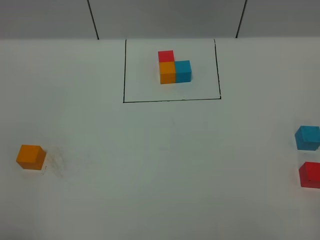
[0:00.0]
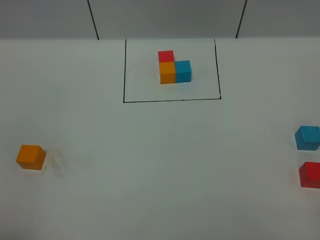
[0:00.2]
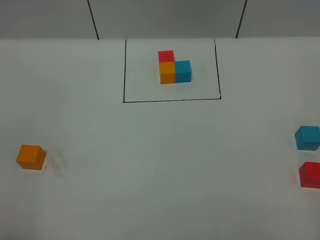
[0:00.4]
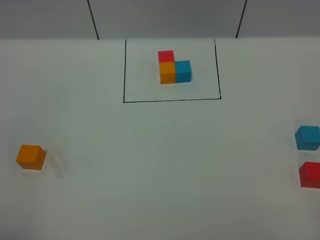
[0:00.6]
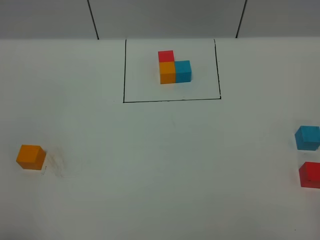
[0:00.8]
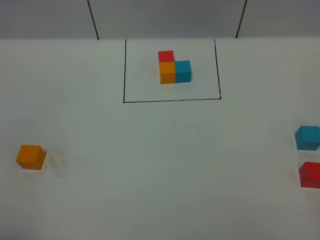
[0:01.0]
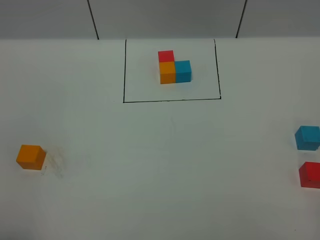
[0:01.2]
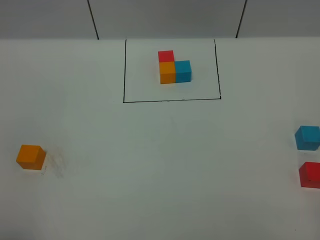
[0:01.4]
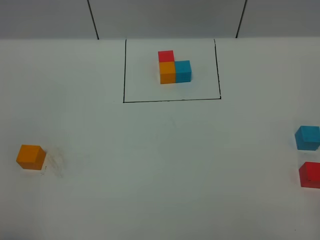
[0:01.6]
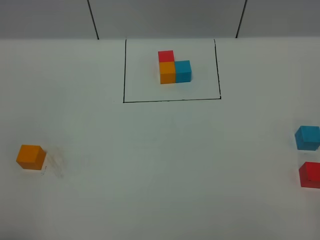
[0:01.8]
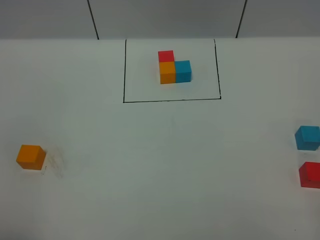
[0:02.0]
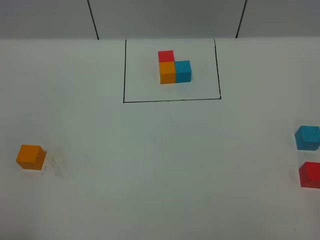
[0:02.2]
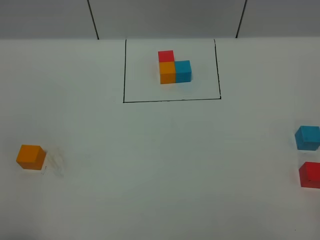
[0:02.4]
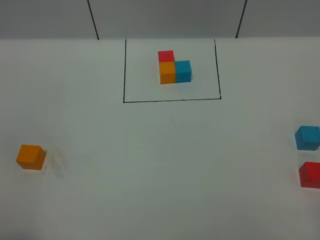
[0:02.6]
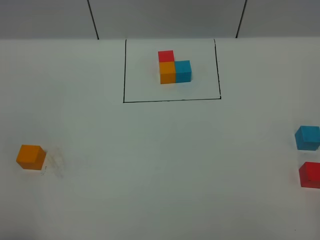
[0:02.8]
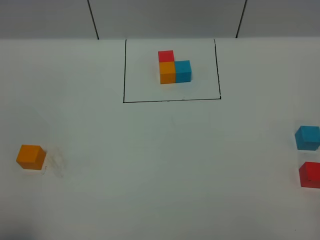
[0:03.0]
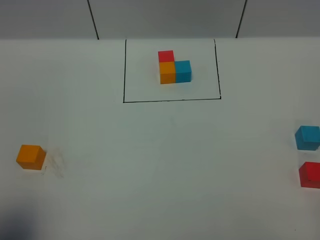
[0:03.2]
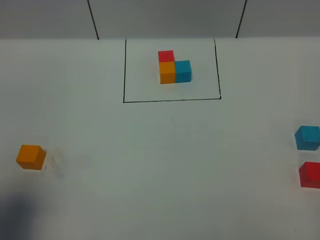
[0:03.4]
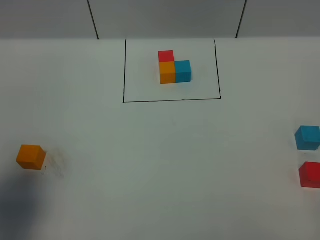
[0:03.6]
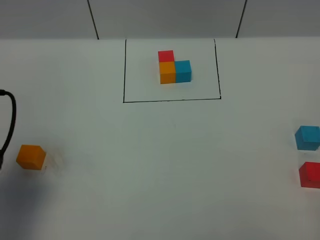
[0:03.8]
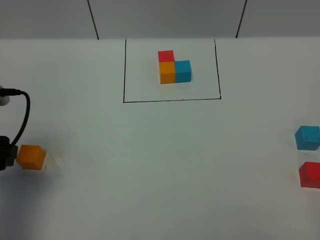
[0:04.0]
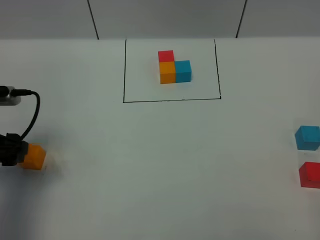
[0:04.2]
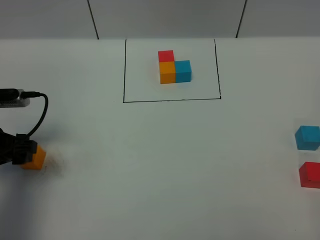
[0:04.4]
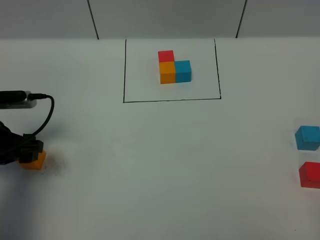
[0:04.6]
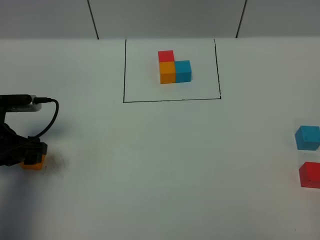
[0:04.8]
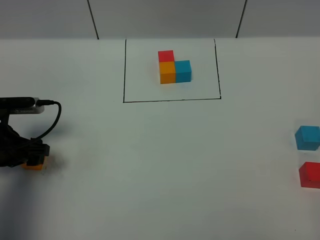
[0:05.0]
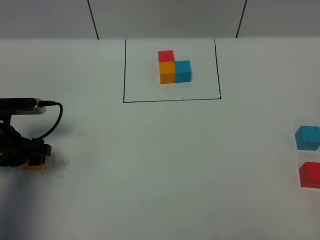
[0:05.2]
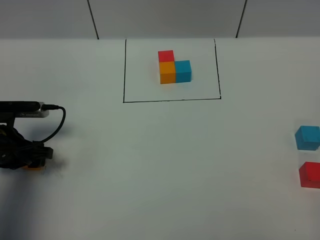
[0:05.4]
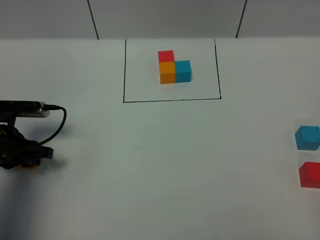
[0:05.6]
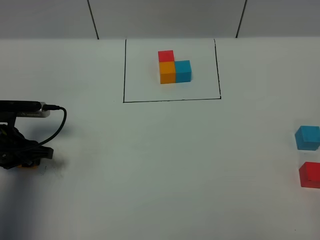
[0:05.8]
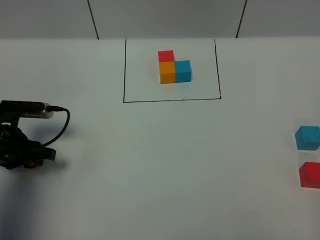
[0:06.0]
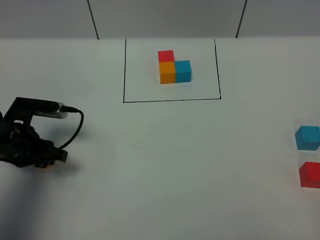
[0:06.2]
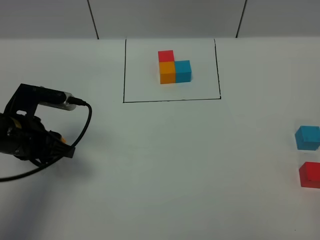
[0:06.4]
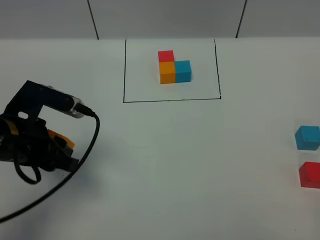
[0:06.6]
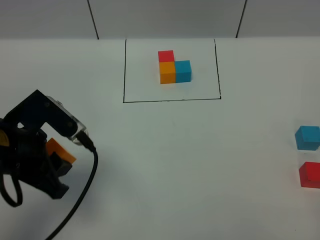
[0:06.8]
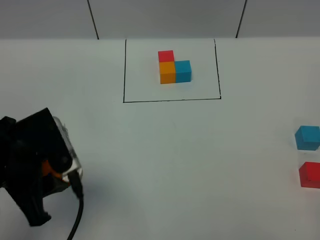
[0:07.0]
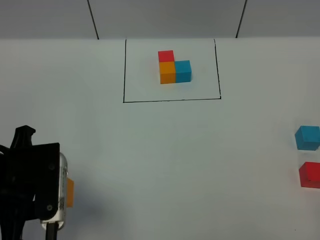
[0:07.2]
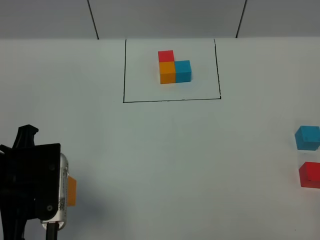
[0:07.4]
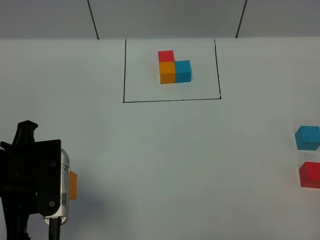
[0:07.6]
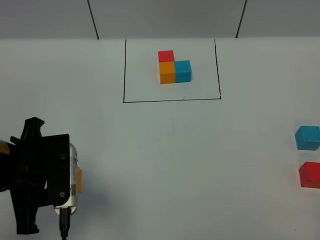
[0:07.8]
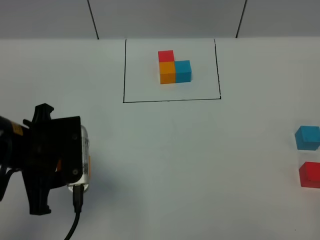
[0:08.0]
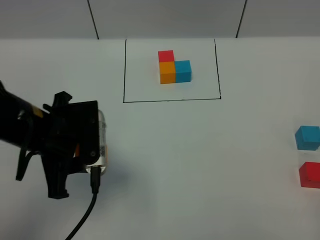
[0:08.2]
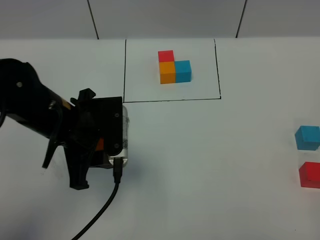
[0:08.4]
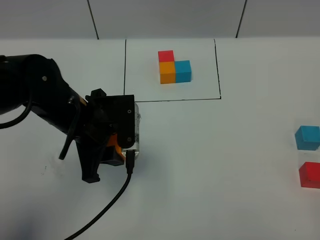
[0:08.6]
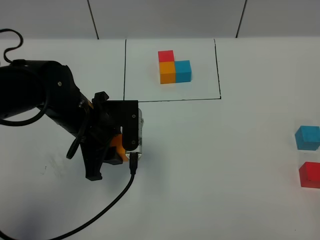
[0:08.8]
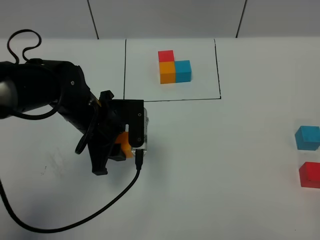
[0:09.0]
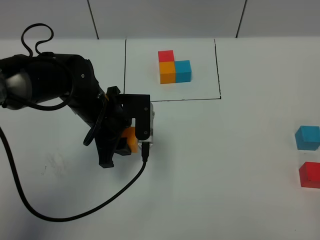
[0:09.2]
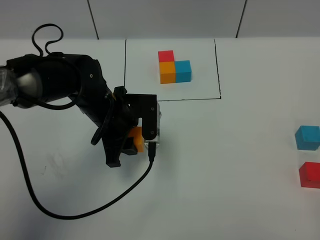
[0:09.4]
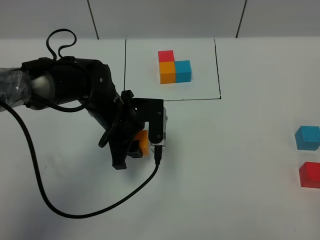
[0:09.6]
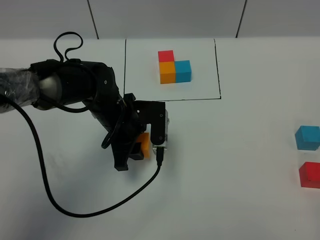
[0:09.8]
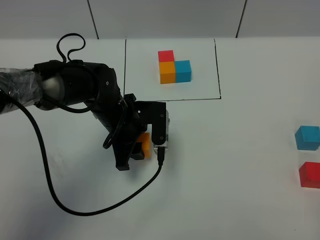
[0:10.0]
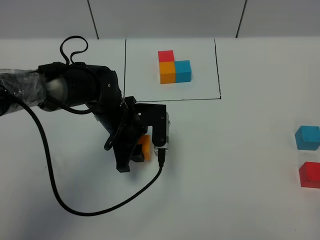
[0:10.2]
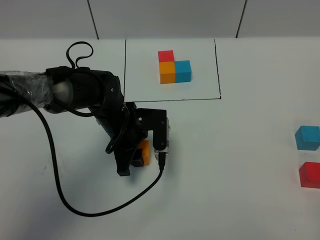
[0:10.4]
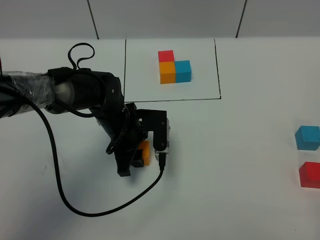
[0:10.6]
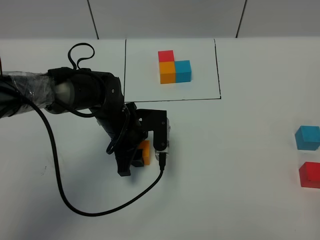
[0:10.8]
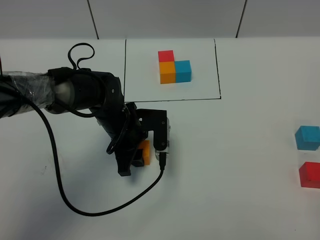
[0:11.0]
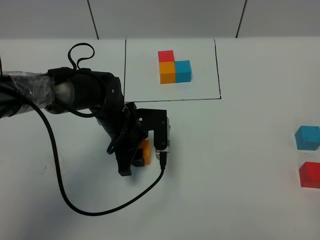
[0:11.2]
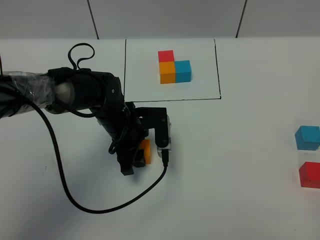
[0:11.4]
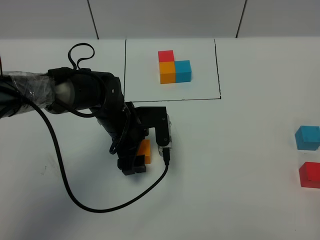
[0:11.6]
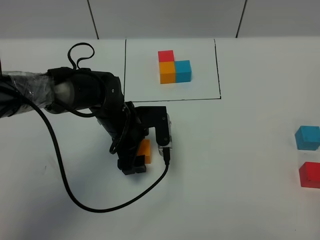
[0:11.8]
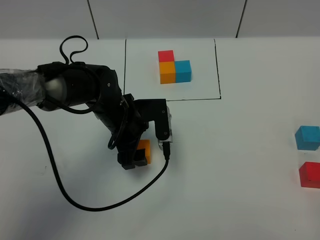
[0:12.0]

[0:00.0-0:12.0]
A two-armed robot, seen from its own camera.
Task of the whole recording: According to the building block template in front, assemble the scattered blocks together.
Step, 0:03.6 to 0:11.6: Put the orange cube in the center of the table.
0:00.0 to 0:01.6: Both grippers stay about where they are.
0:03.0 to 0:04.4: The left gripper heads forward and downward, covering about 25 cm.
0:04.4 to 0:06.0: The left gripper goes approximately 5 cm downward, and closes up.
0:06.0 to 0:07.6: The left gripper moves upward, backward and to the right, some 20 cm.
0:07.6 to 0:09.0: The left gripper travels forward, to the right and downward by roughly 20 cm.
0:09.0 to 0:10.4: The left gripper shifts roughly 5 cm downward.
0:10.4 to 0:12.0: The left gripper opens up.

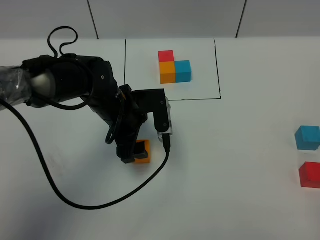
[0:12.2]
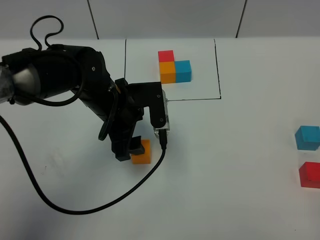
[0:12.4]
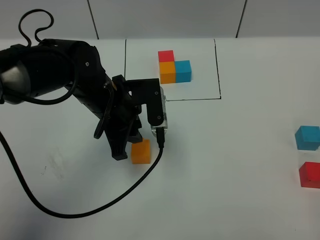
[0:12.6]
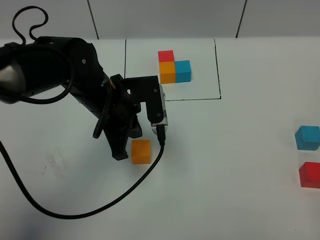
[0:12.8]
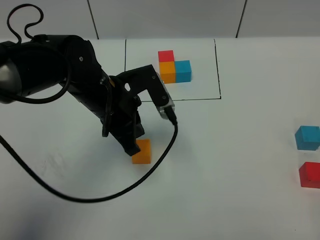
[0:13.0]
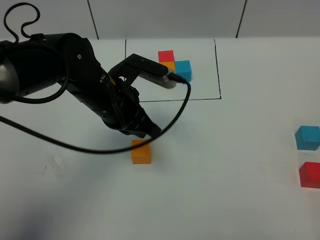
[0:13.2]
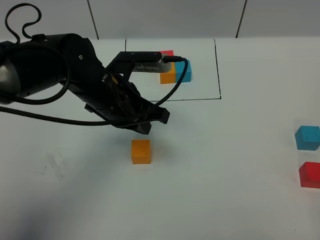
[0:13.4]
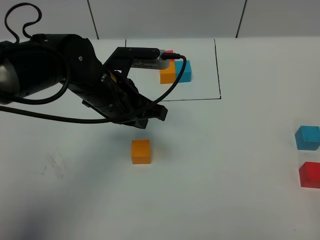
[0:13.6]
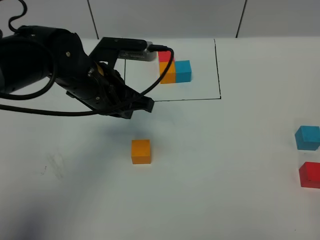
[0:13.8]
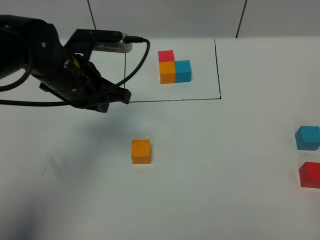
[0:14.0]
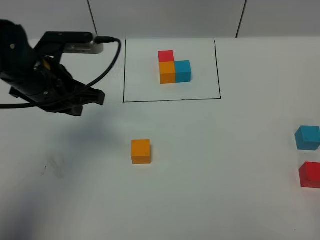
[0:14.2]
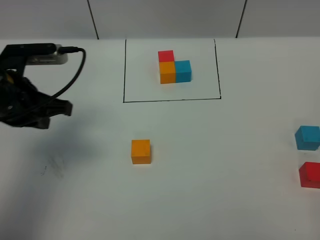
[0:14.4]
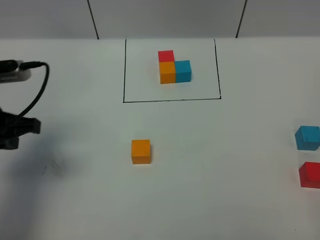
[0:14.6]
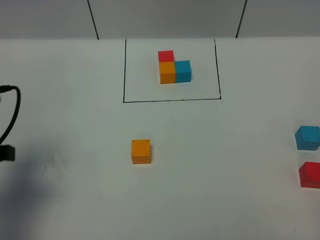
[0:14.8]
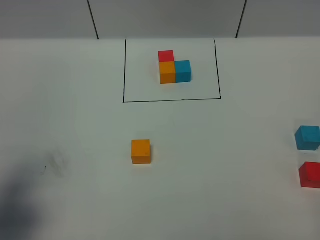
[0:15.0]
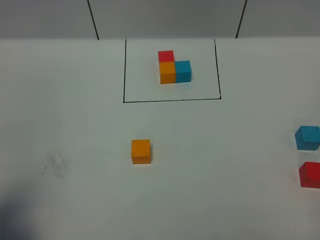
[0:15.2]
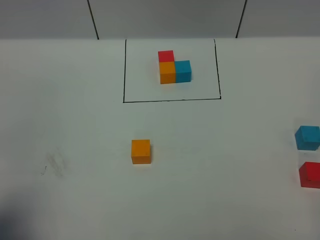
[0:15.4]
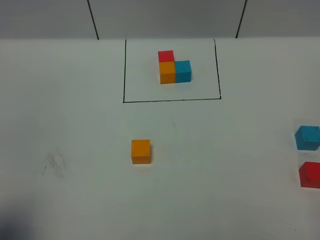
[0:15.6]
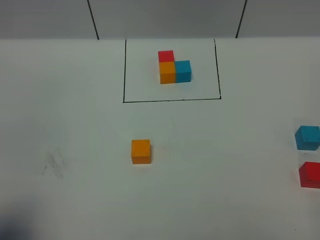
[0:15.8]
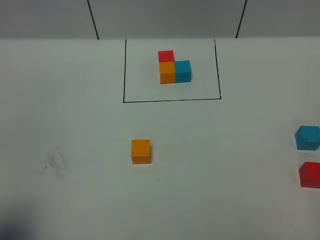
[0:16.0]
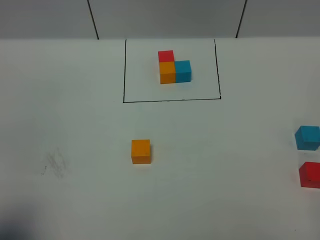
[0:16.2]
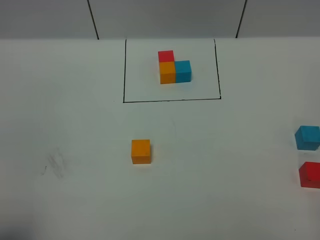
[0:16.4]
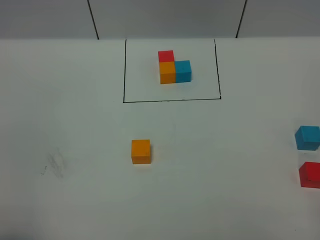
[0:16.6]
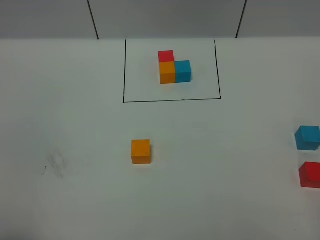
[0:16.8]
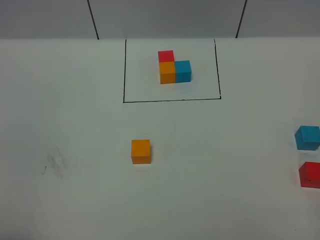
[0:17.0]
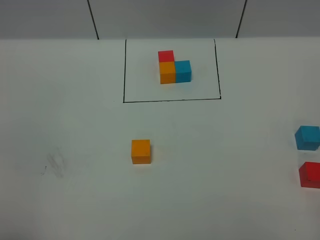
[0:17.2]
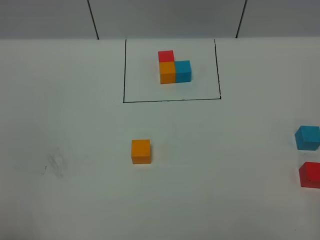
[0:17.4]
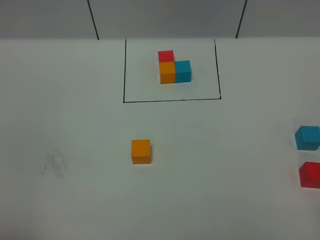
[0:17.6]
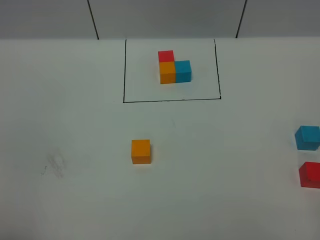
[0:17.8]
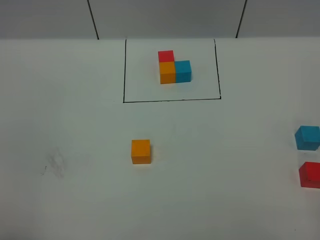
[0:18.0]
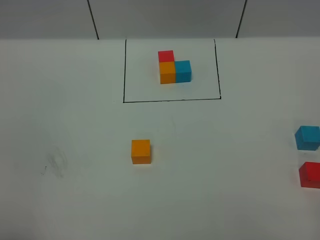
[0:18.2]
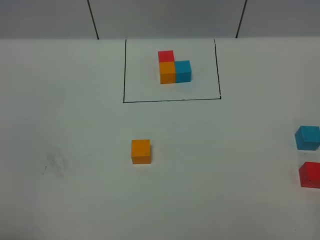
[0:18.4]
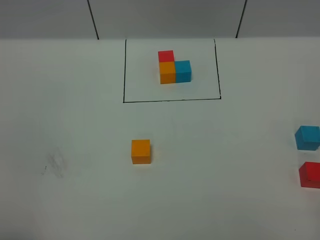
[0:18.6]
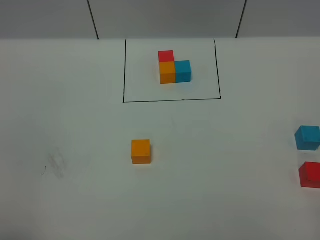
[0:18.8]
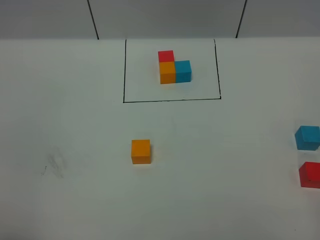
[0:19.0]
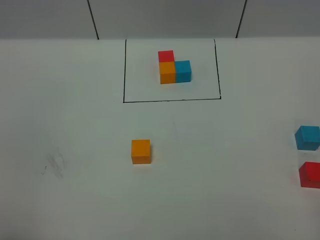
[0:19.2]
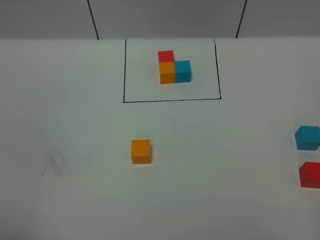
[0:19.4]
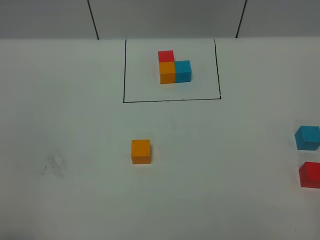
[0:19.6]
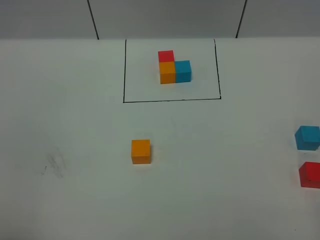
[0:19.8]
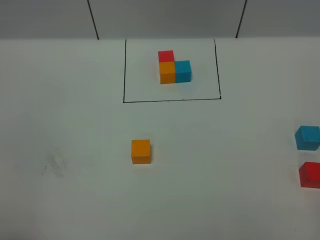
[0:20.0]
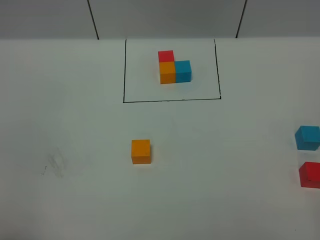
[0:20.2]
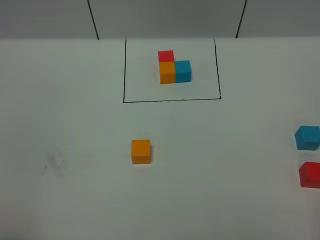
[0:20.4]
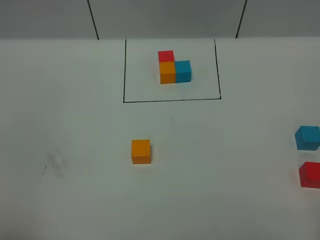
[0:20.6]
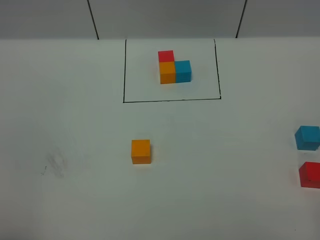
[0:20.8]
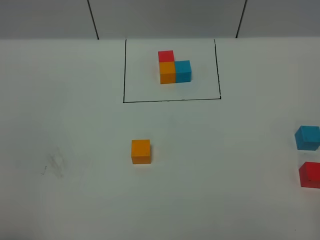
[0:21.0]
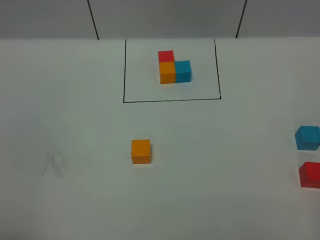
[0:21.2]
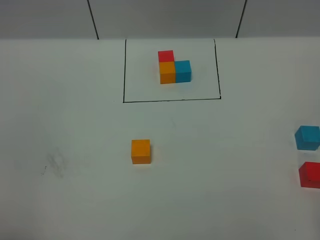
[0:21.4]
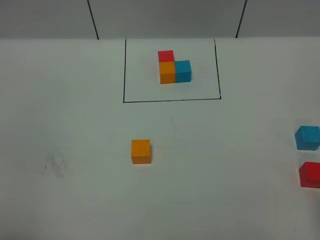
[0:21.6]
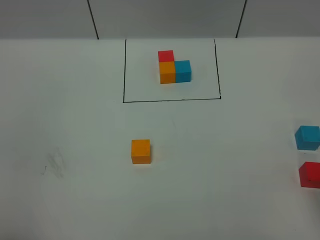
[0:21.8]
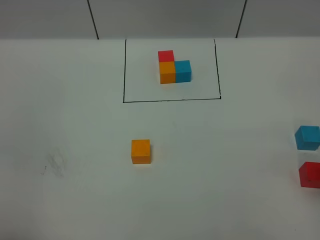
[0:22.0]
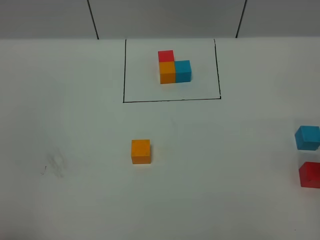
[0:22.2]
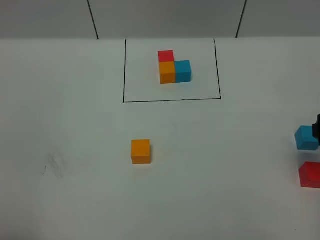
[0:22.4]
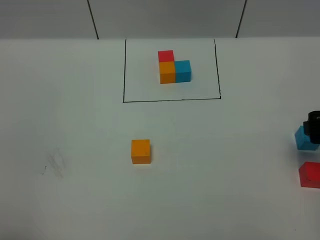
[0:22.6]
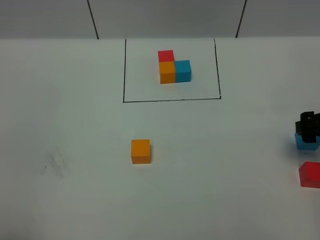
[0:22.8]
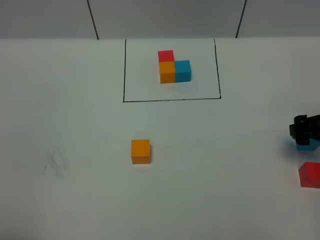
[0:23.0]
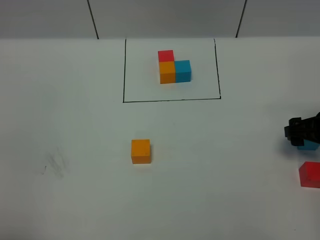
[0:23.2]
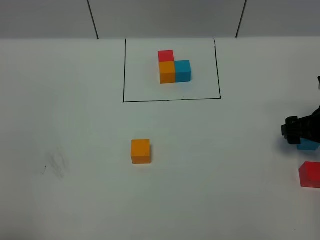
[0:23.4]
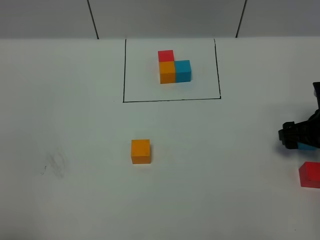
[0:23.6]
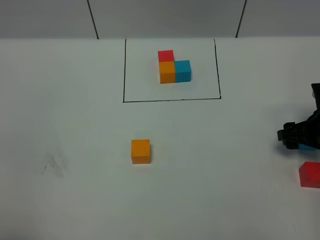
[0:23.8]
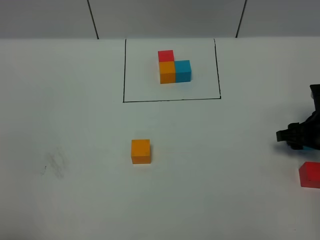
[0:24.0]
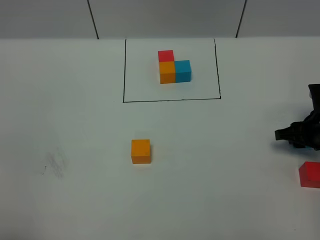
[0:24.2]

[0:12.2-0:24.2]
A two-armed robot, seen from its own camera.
Task of the whole recording: According to the building block template in front, assemble the scattered blocks together.
0:12.2 to 0:13.8: The left gripper is displaced upward by about 5 cm, and closes.
0:13.8 to 0:15.2: The left gripper travels backward and to the left by about 30 cm.
0:15.2 to 0:16.6: The left gripper is displaced backward by roughly 10 cm.
0:16.6 to 0:19.8: The two grippers keep their place.
0:21.2 to 0:22.6: The right gripper goes about 25 cm forward.
0:22.6 to 0:24.2: The right gripper travels downward and forward by about 10 cm, and closes up.
